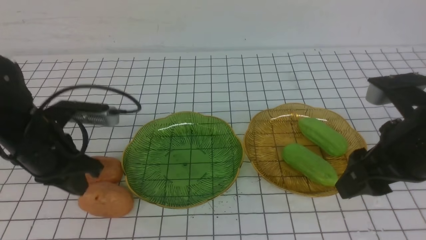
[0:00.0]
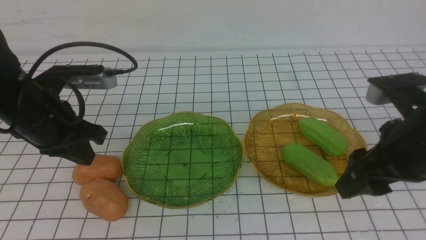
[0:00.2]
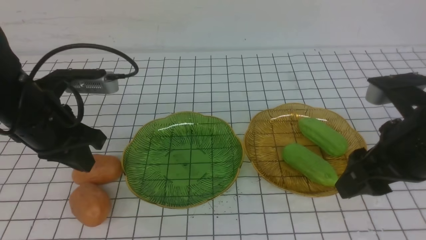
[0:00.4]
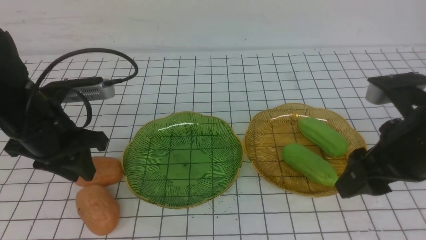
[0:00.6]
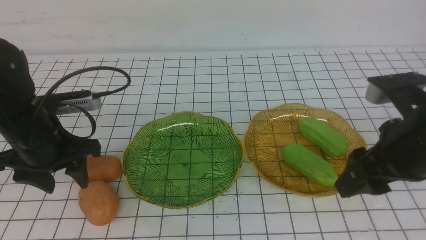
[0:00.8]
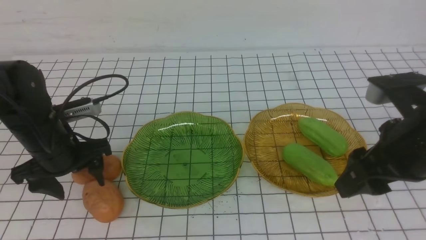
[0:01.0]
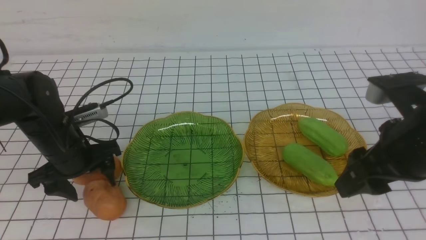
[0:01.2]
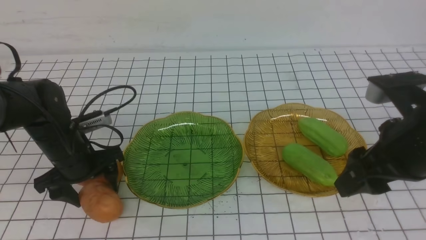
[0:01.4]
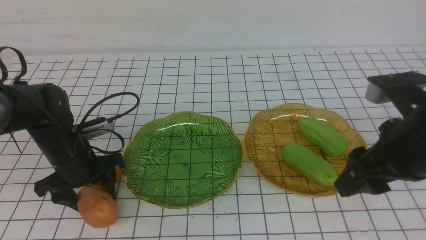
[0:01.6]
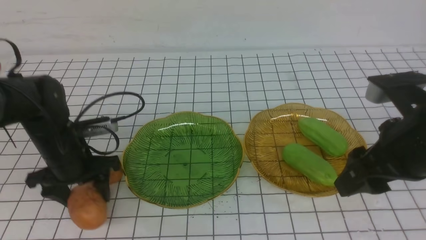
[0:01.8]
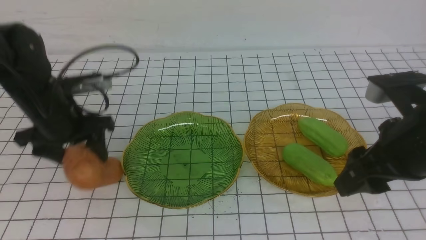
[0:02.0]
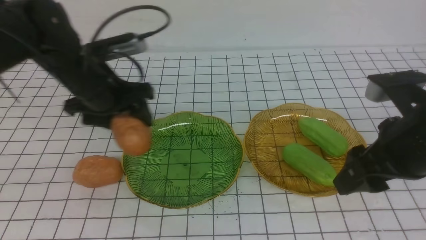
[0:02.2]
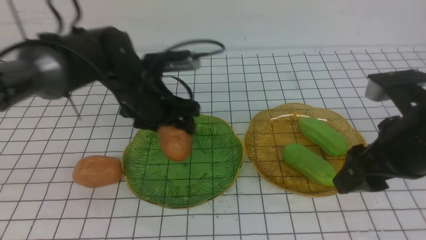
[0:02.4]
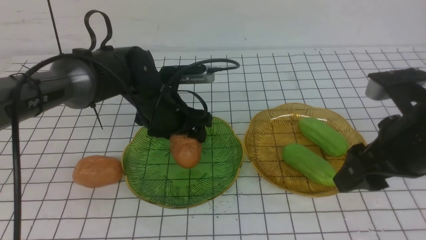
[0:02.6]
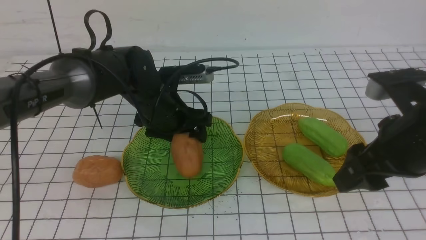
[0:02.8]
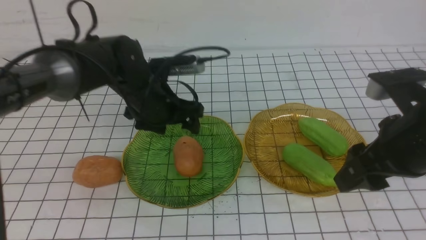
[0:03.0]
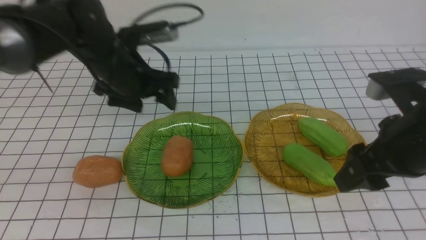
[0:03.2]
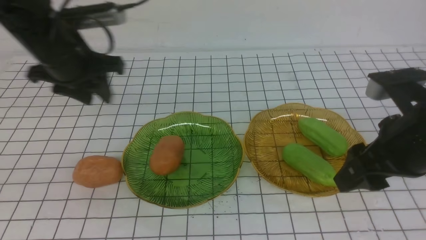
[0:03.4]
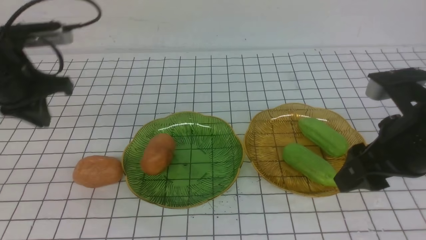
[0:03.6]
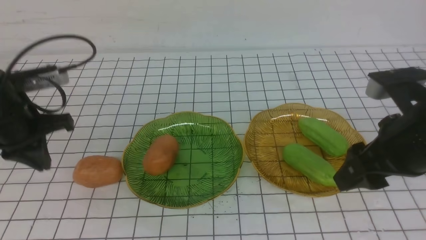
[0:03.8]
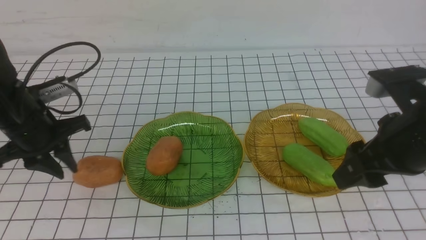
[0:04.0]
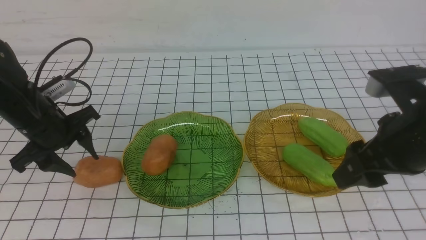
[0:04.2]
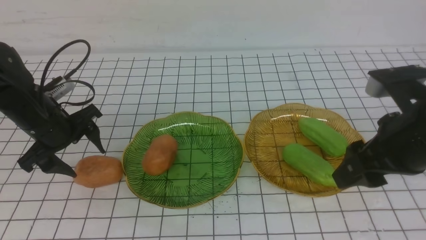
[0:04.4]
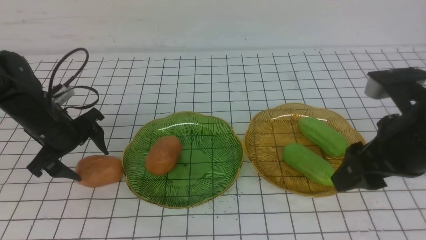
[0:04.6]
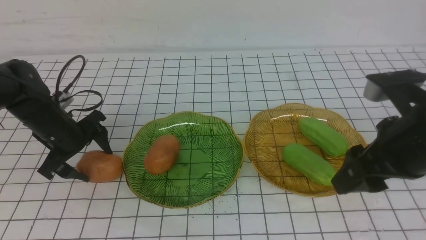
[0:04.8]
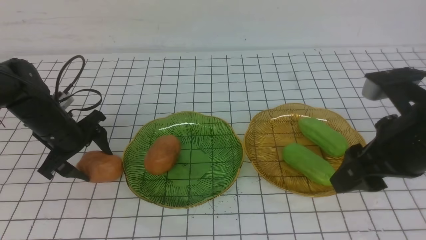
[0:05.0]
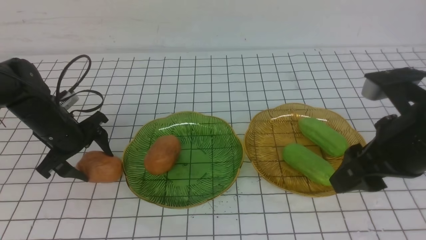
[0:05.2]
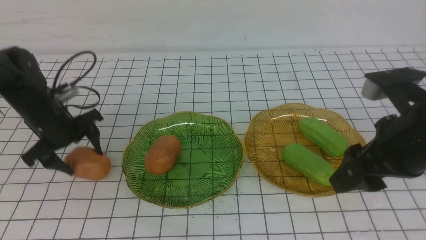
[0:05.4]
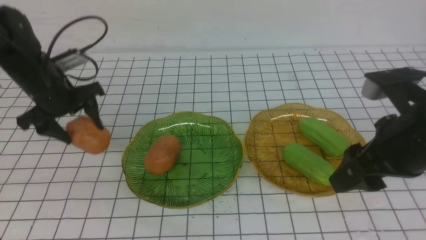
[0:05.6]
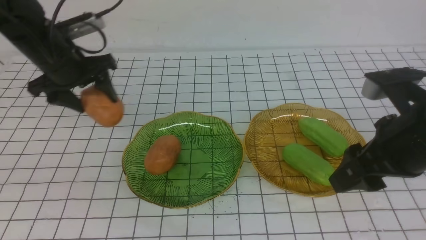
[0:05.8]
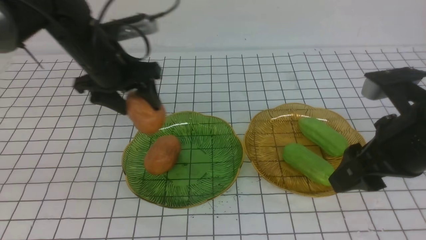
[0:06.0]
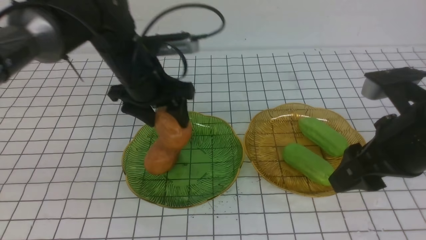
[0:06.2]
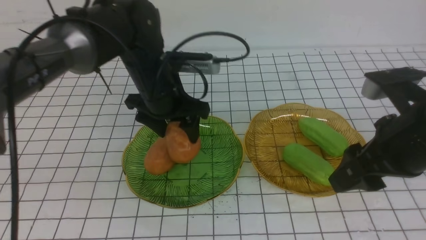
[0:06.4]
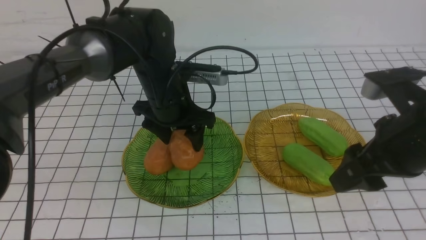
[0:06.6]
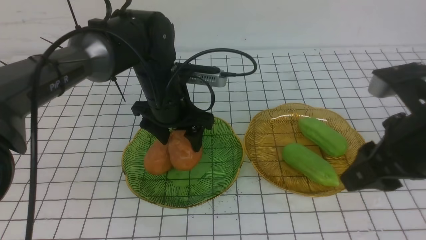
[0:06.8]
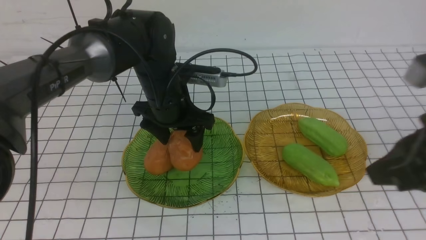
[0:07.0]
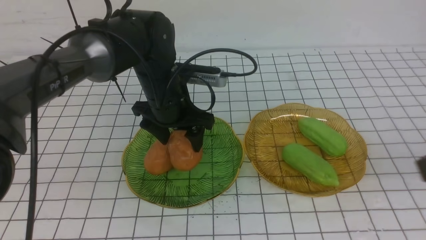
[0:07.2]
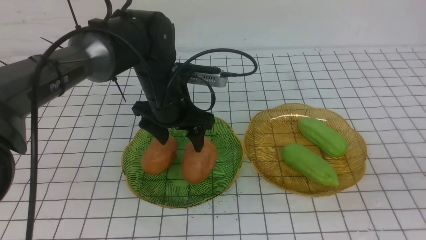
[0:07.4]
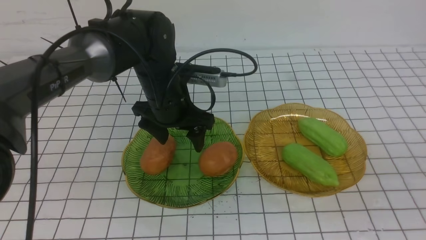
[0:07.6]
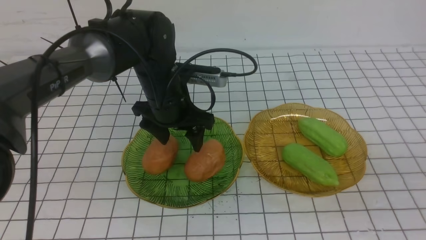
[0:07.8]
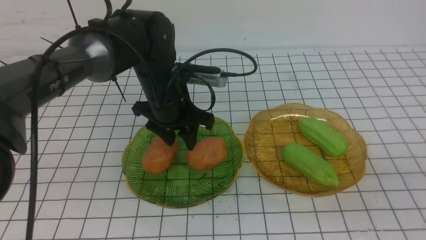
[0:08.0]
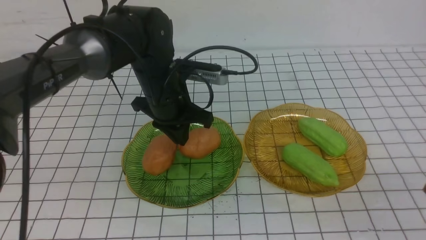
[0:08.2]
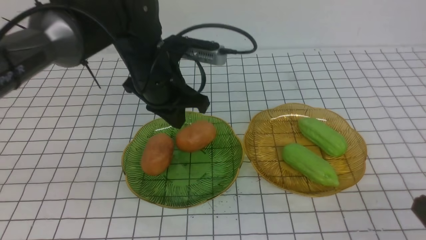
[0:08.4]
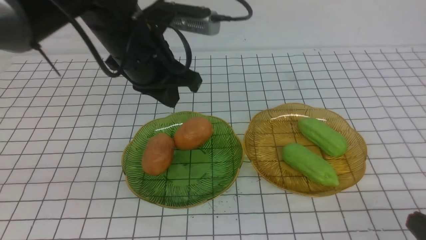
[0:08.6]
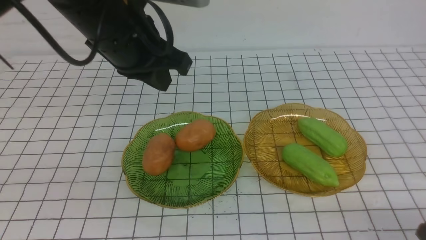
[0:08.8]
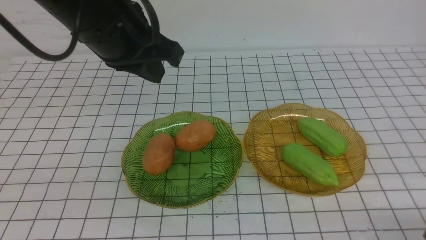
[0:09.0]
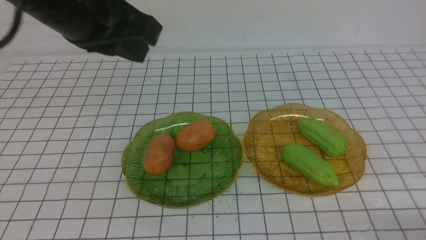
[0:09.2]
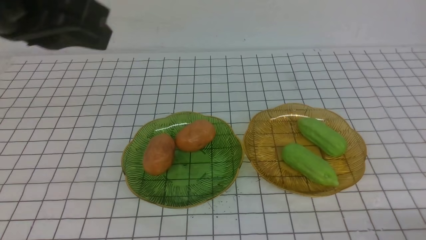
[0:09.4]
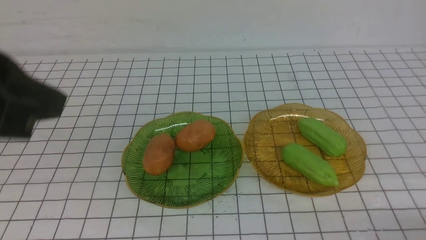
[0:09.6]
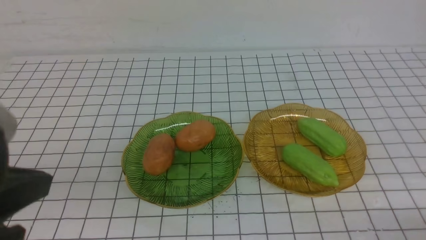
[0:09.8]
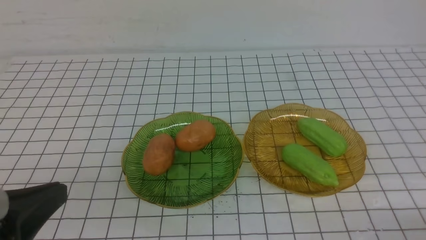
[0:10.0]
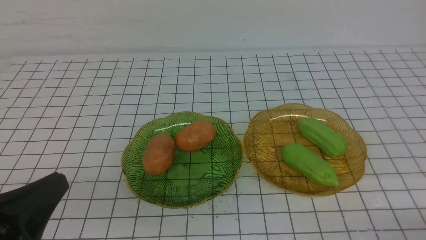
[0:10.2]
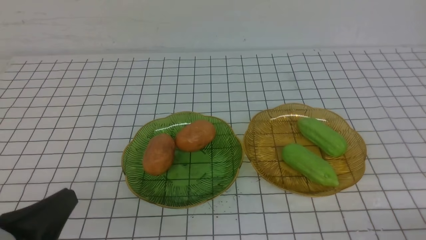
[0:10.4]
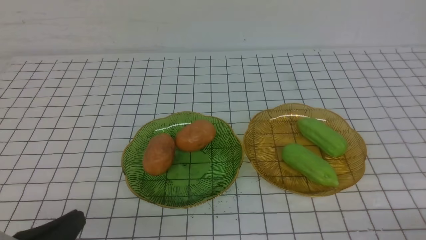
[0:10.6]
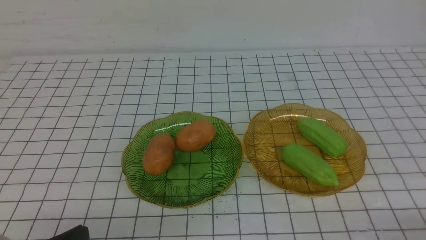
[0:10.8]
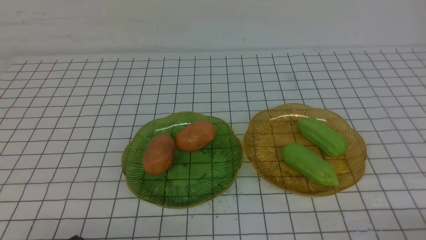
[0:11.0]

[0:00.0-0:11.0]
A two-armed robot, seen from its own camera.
Step, 0:00.0 to 0:02.8: Grab a potato with your left arm and put it on the left plate.
Step, 0:03.0 to 0:07.4: Grab a potato with your left arm and put it on the left plate.
0:00.0 to 0:01.6: The left gripper heads downward, covering some 5 cm, and opens up.
0:01.6 to 0:03.2: The left gripper shifts about 15 cm upward, to the right and forward.
0:03.2 to 0:04.8: The left gripper goes roughly 15 cm to the left and downward, and closes, then reopens.
0:04.8 to 0:06.2: The left gripper travels to the right and upward by roughly 15 cm.
0:06.2 to 0:07.8: The right gripper heads backward and to the right, covering some 20 cm, and closes up. Meanwhile the left gripper travels to the right by about 5 cm.
0:07.8 to 0:09.4: The left gripper is displaced upward and backward by approximately 25 cm, and closes. Meanwhile the right gripper moves downward, some 15 cm.
0:09.4 to 0:11.0: The left gripper heads downward and backward, covering some 30 cm.

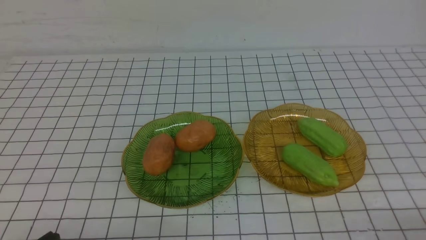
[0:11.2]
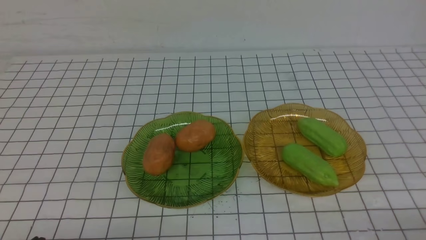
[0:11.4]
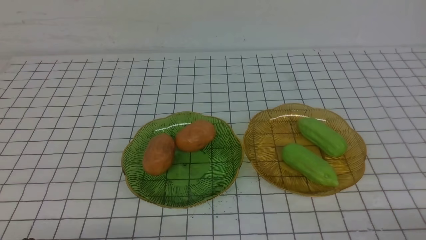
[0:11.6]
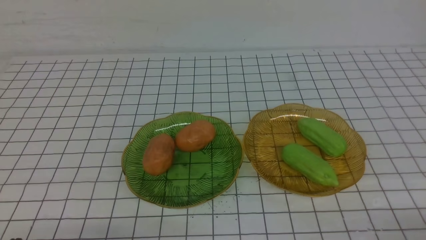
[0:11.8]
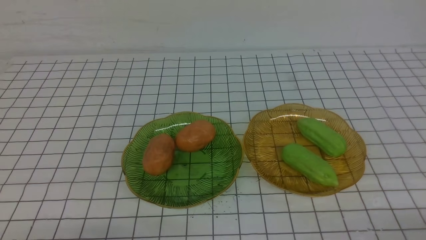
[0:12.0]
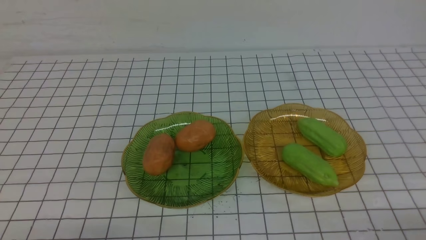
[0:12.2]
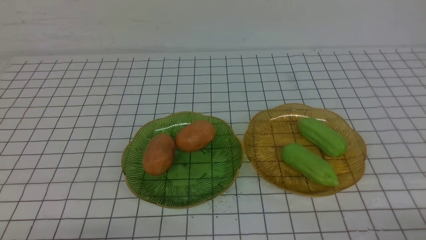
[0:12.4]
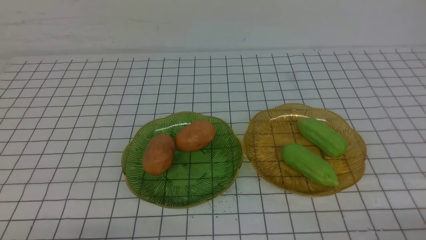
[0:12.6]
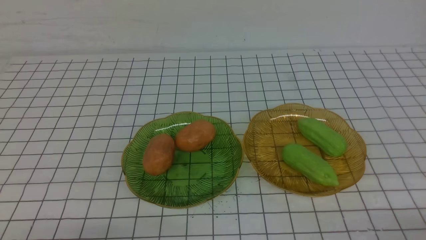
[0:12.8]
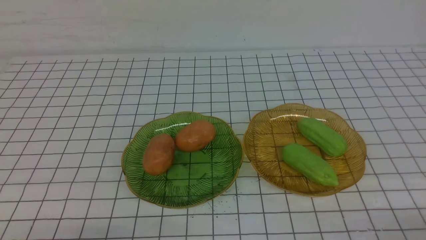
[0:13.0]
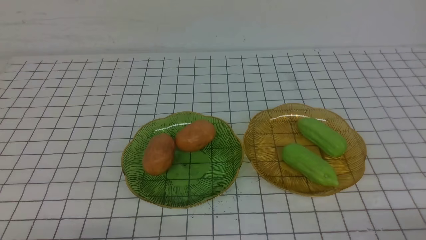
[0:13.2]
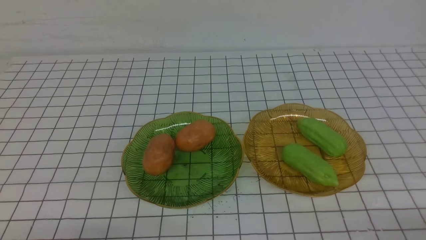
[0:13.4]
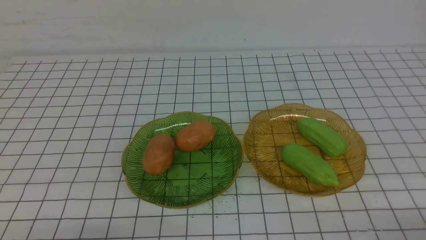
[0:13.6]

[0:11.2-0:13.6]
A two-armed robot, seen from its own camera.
0:12.4 to 0:13.6: The two grippers keep their place.
